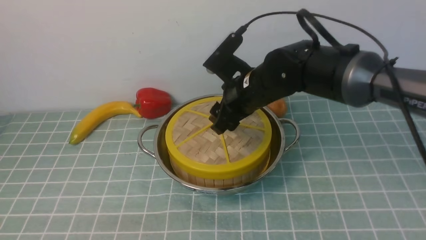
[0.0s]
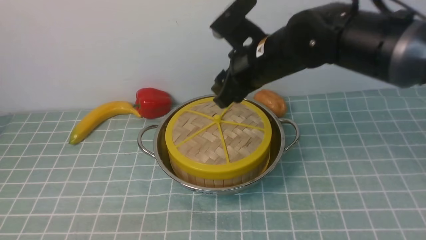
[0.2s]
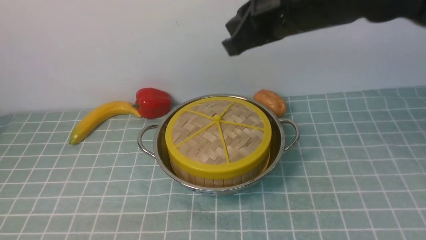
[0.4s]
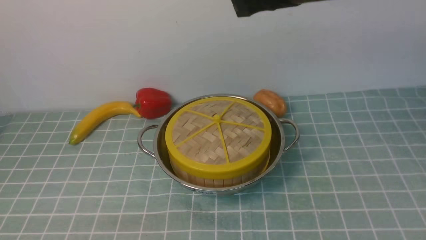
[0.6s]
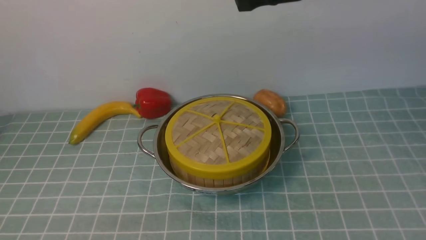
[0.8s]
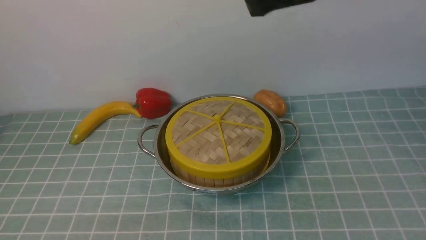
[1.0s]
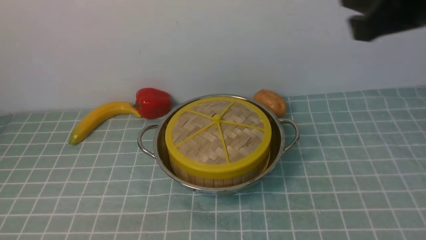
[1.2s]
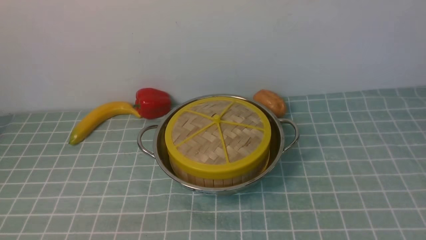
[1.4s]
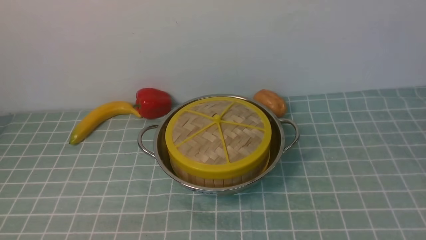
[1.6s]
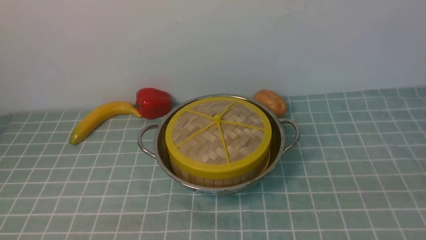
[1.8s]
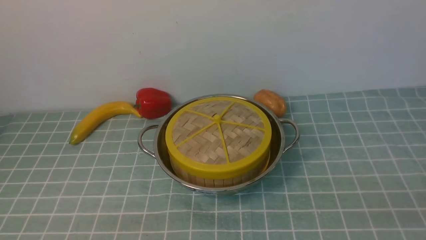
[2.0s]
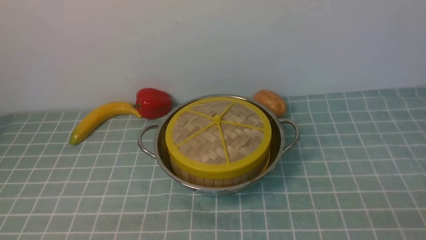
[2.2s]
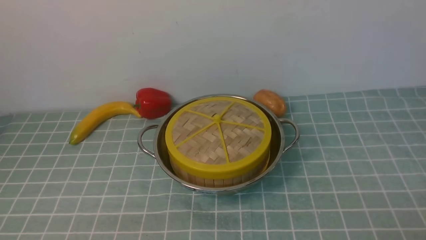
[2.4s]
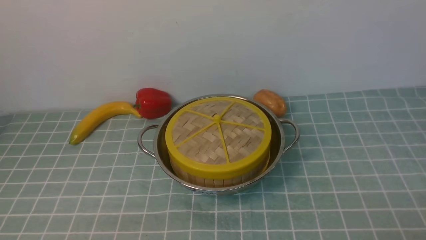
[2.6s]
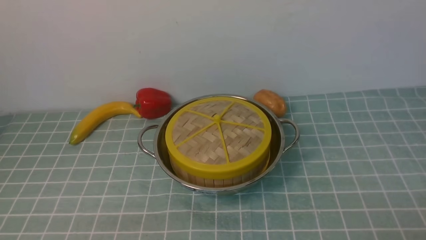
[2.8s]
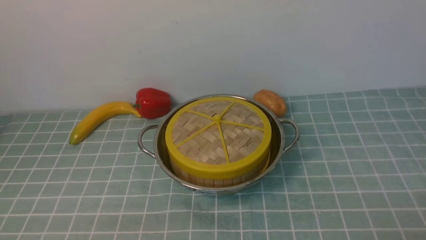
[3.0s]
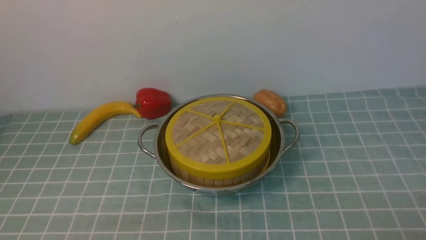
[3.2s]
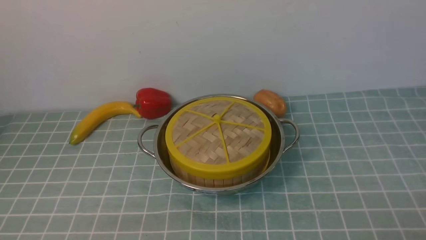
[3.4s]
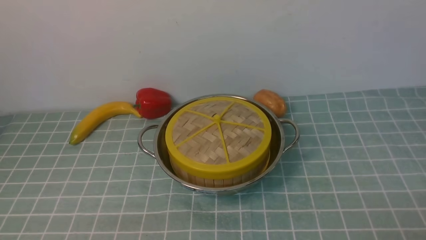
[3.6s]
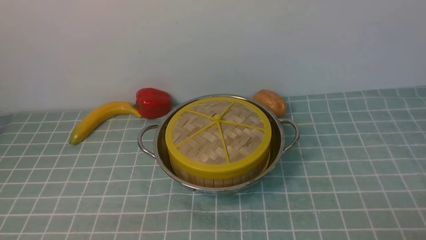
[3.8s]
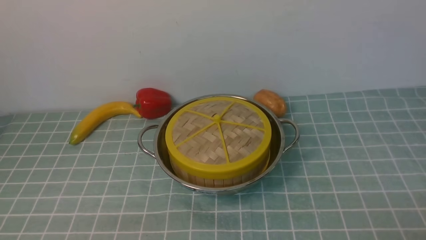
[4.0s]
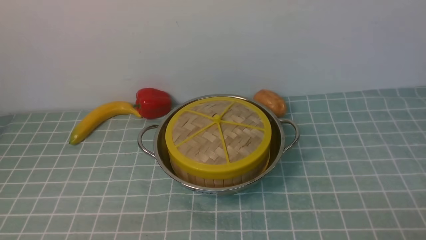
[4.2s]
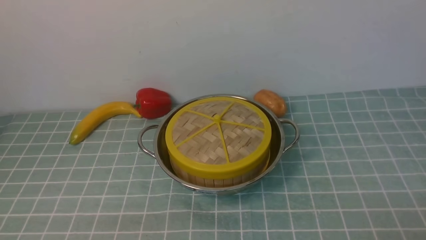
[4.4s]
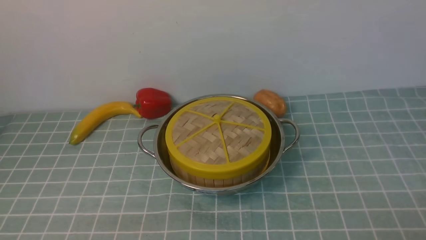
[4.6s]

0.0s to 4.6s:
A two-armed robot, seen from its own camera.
Task of the whole recording: place the steamer in the pot on the blue tablecloth, and put the lid on the steamer.
0.0s to 1.6s: The right gripper shifts roughly 40 cm backward, to the right and upward, and closes.

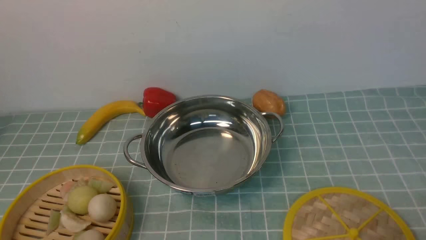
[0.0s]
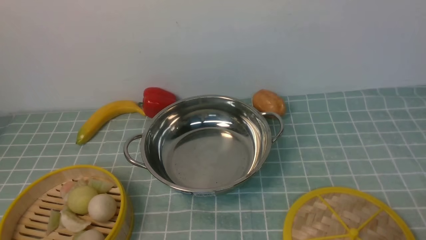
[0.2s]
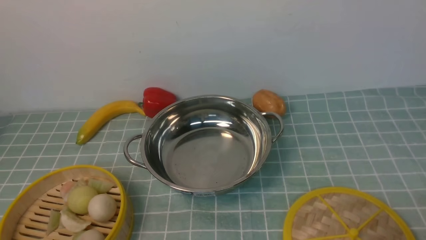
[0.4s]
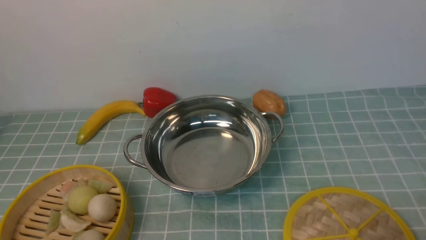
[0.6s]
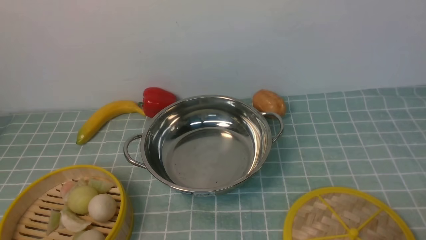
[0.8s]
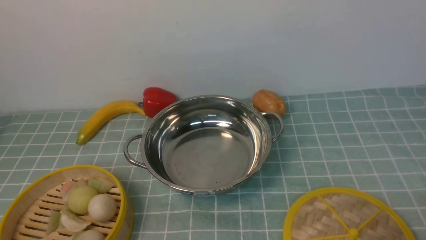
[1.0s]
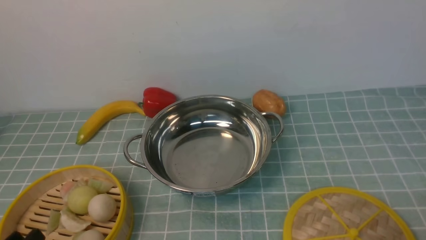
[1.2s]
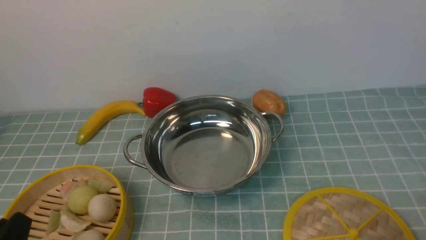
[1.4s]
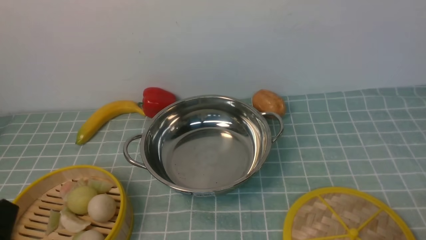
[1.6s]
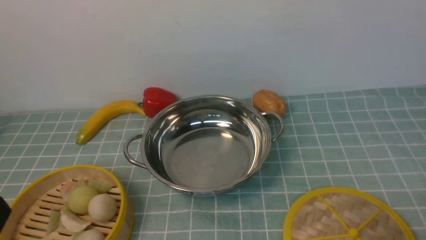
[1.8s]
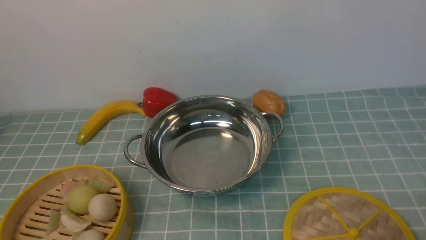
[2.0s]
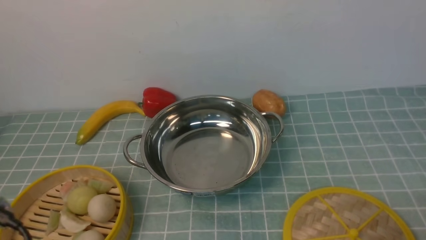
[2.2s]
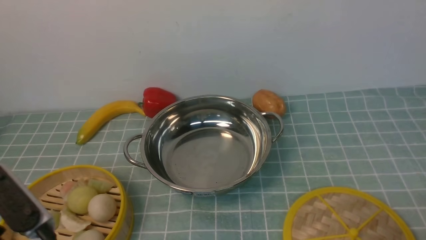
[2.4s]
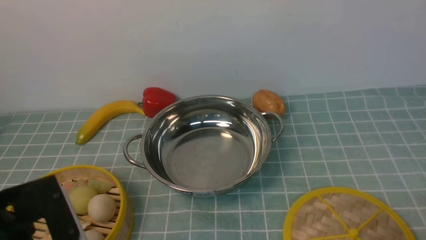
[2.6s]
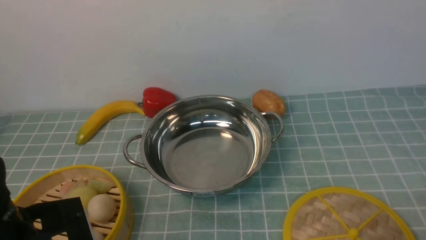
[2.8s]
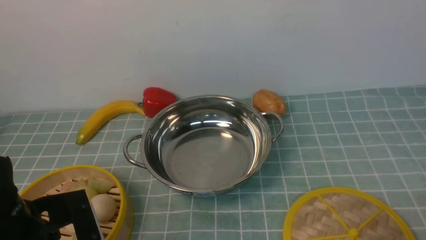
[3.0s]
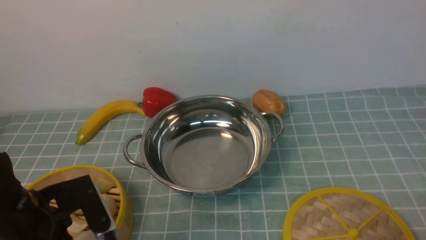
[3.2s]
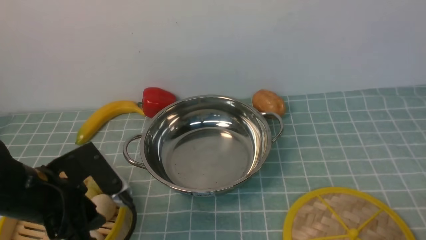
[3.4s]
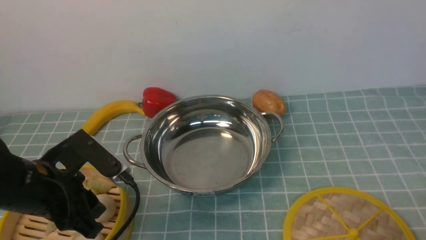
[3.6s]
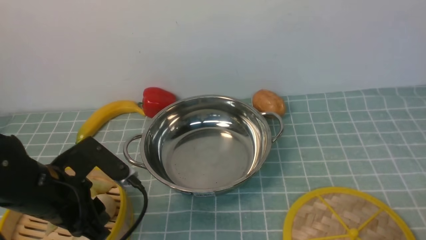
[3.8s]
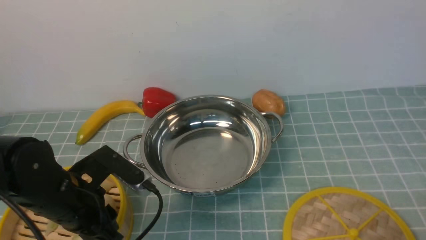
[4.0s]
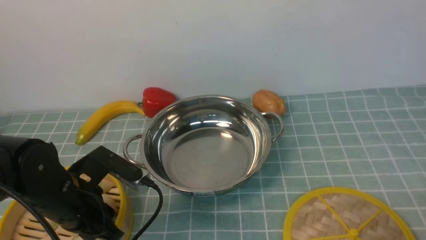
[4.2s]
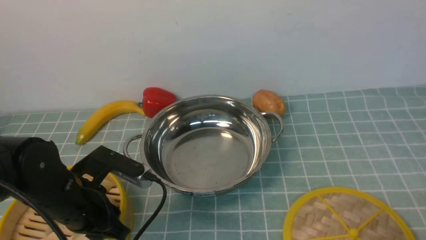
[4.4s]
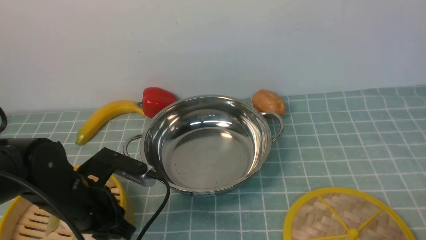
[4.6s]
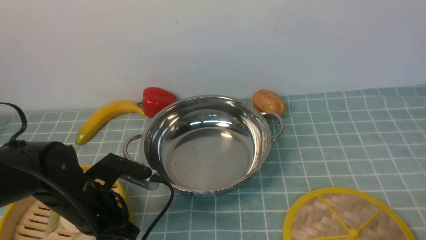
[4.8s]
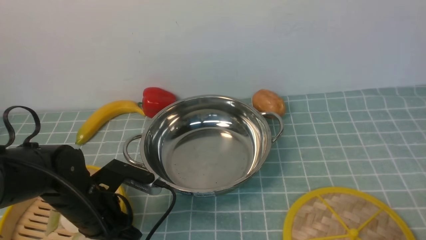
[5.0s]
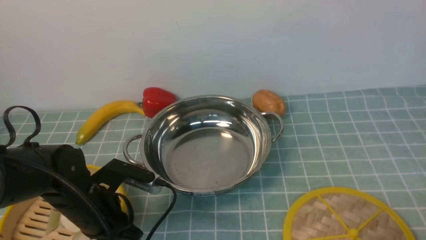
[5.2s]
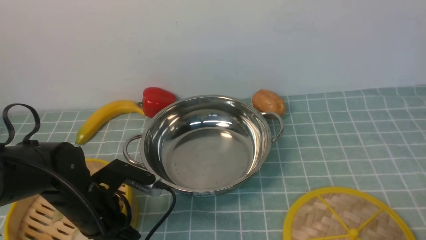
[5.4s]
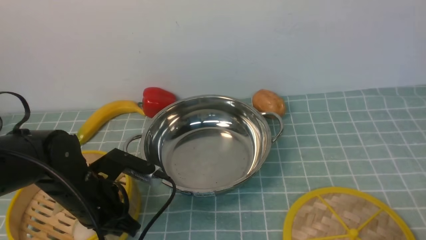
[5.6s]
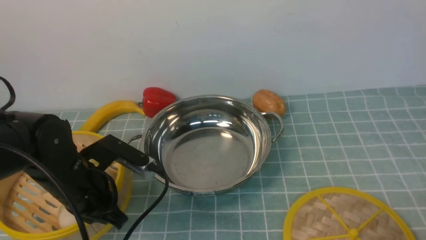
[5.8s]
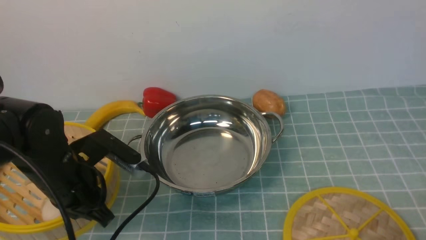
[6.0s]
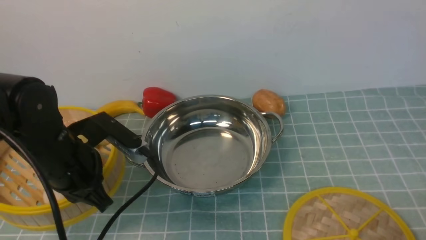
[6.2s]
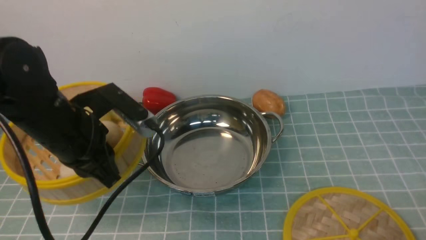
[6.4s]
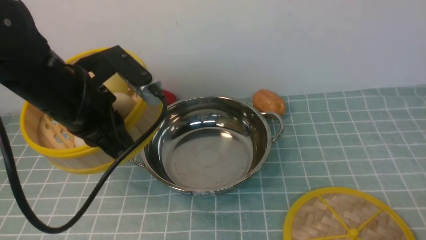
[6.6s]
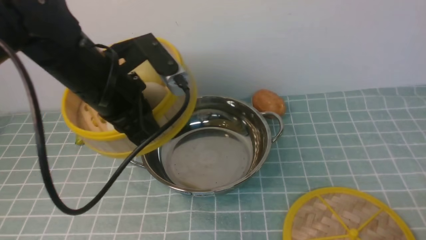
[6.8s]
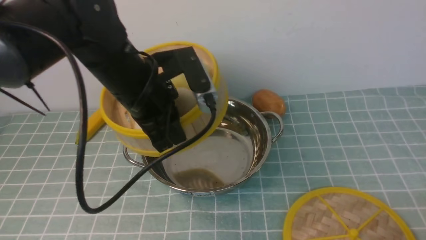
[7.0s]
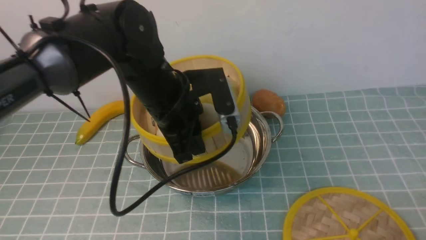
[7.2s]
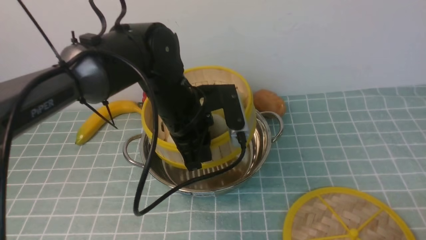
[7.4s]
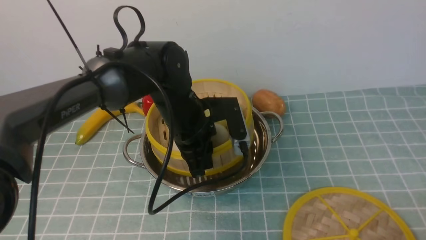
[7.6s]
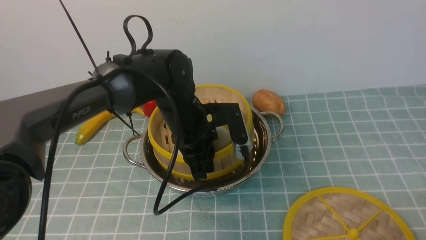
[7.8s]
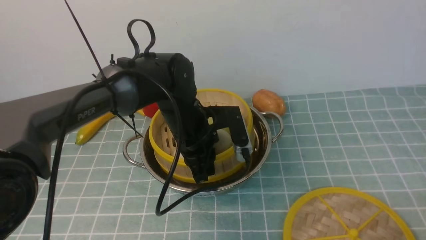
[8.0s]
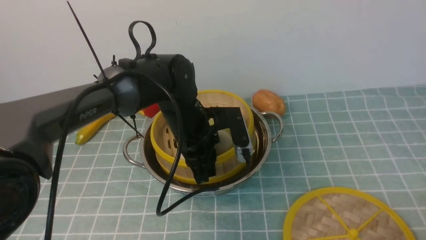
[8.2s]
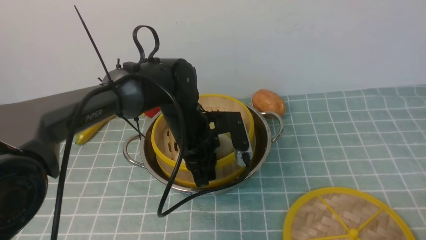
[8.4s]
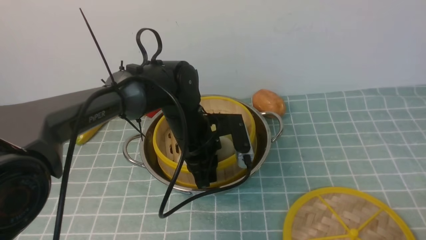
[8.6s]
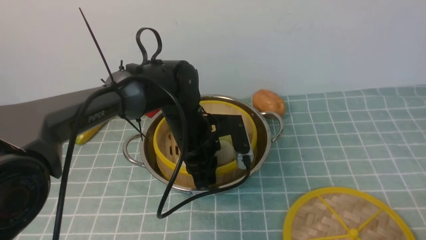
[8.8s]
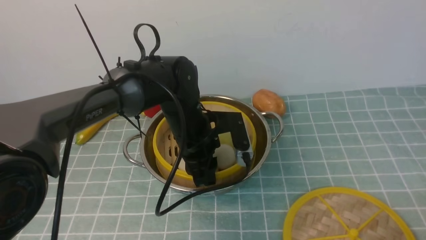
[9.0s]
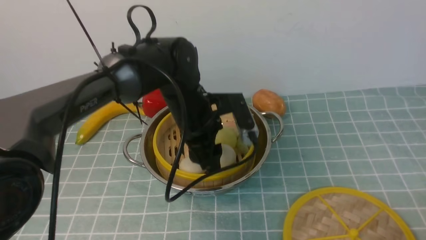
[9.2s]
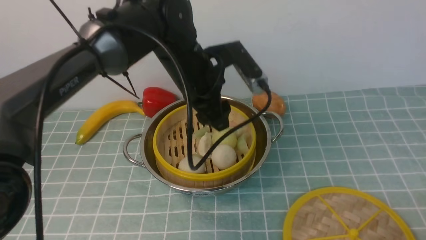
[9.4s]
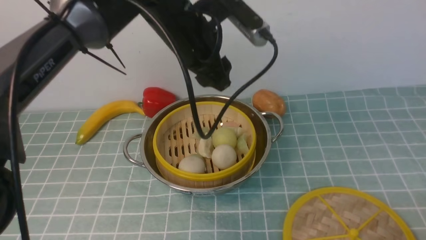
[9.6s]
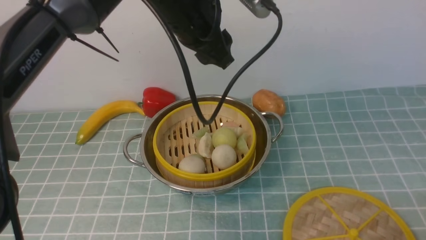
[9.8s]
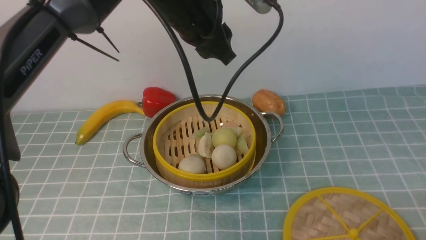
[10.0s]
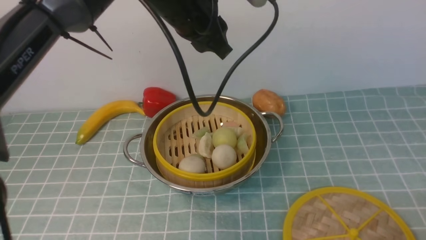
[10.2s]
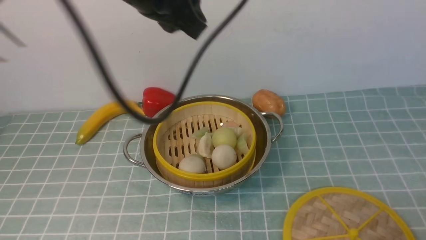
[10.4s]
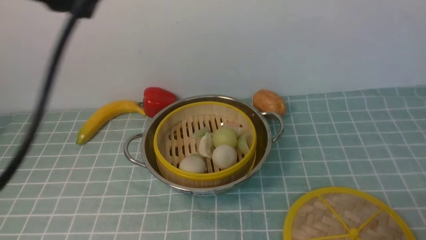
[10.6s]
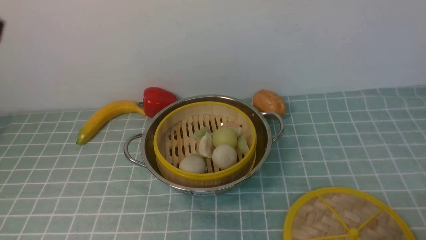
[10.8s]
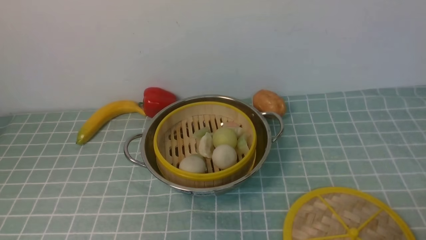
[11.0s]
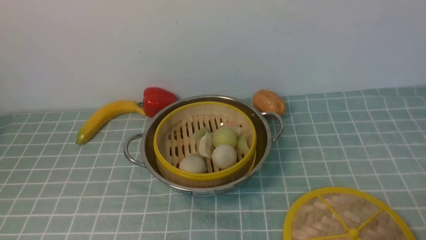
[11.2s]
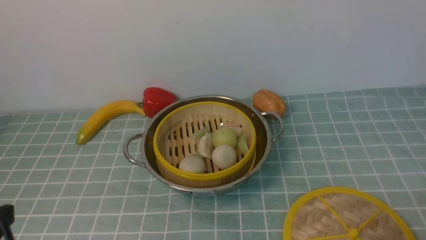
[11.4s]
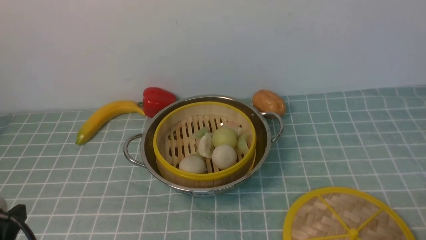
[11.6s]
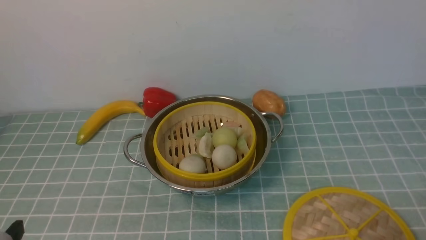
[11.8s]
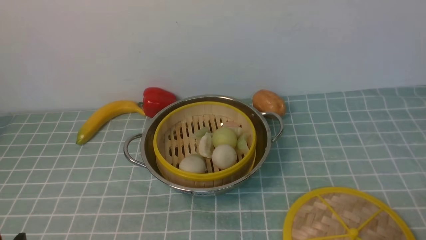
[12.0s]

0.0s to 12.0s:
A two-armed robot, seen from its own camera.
Task of the whole recording: place the steamer in the pot on the blue tablecloth, and put the lid on the steamer.
Step, 0.0s to 6.0s: use the left arm to lift the steamer closest to it.
Step, 6.2s to 9.4s: use the left arm to put the steamer into the iron steamer pot in the middle.
1.6s to 3.0s: The left gripper moves forward, some 15 cm.
3.0s to 4.4s: The left gripper is displaced forward by approximately 5 cm.
4.4s to 6.0s: The left gripper closes.
6.0s to 7.6s: The left gripper moves to the right and forward, approximately 20 cm.
7.6s to 9.0s: The left gripper opens up.
9.0s to 10.4s: The left gripper is displaced upward by roughly 25 cm.
10.4s to 12.0s: The left gripper goes roughly 40 cm downward, backward and to the left.
